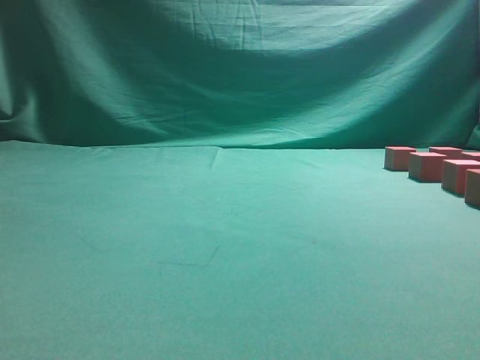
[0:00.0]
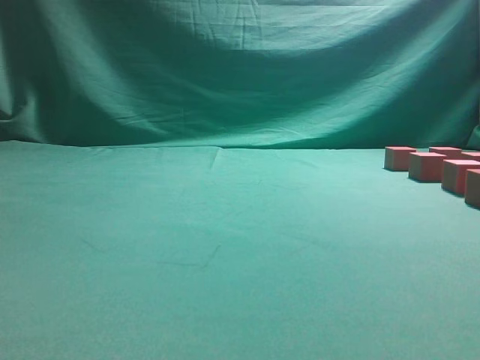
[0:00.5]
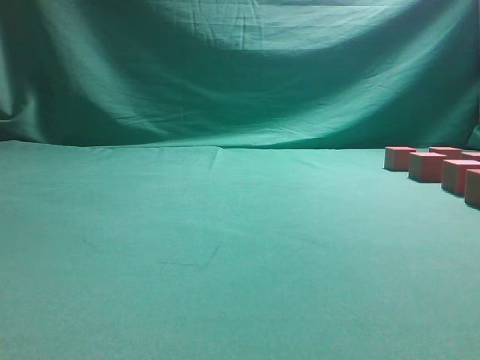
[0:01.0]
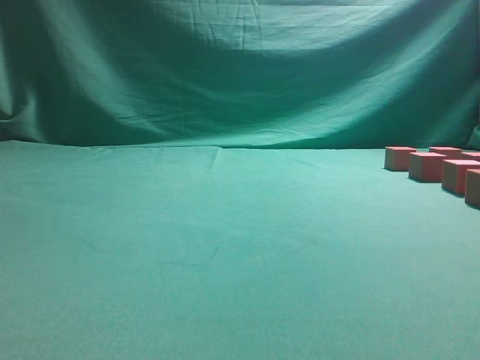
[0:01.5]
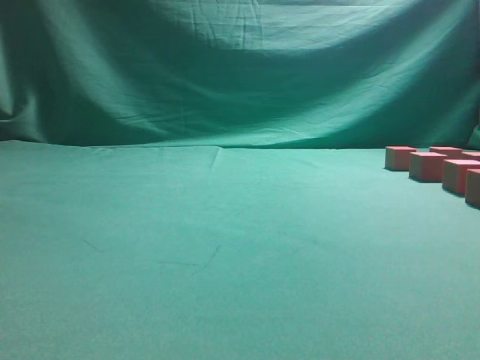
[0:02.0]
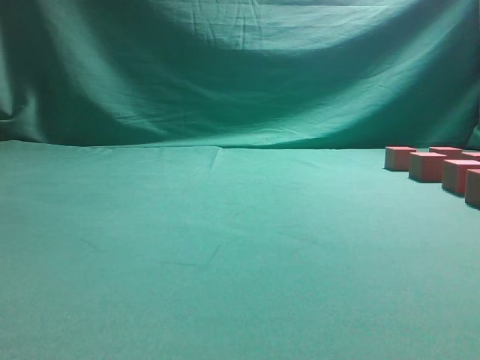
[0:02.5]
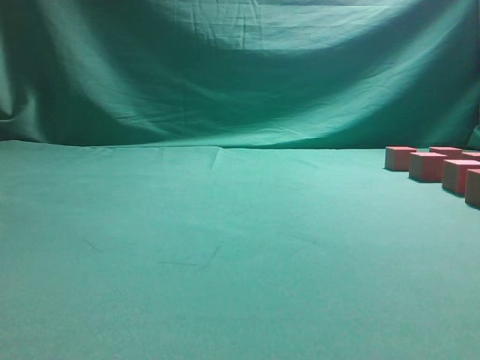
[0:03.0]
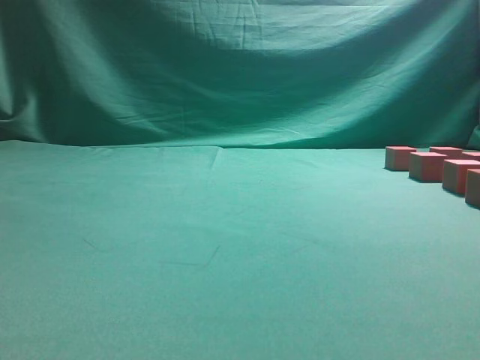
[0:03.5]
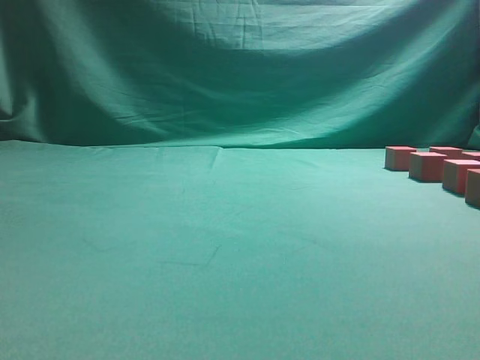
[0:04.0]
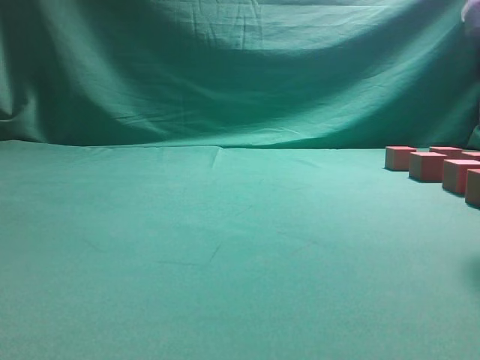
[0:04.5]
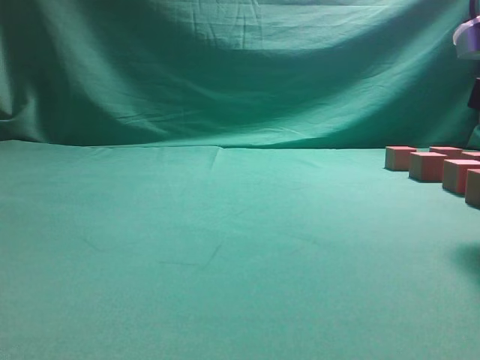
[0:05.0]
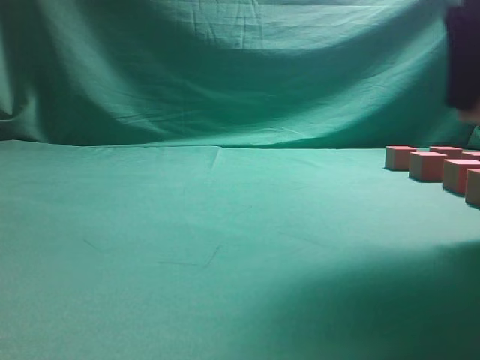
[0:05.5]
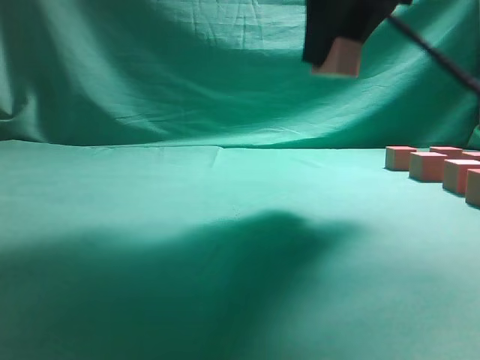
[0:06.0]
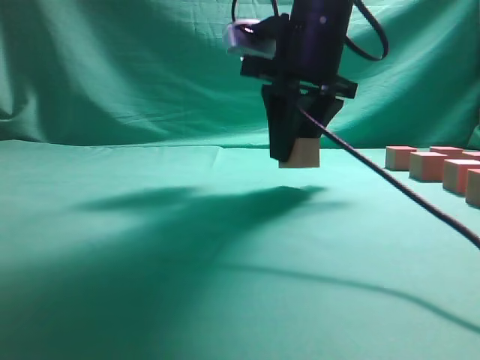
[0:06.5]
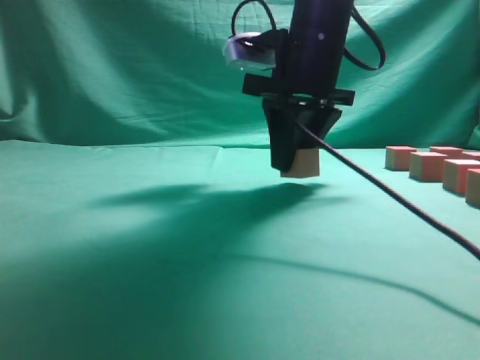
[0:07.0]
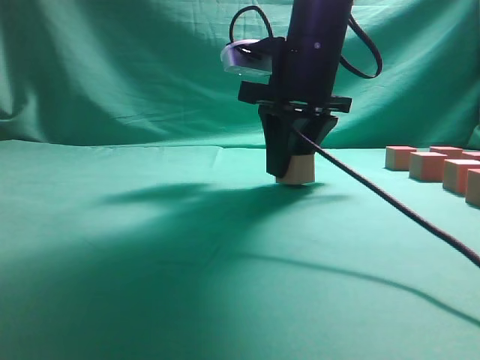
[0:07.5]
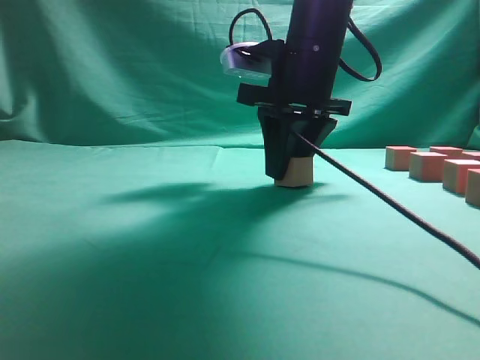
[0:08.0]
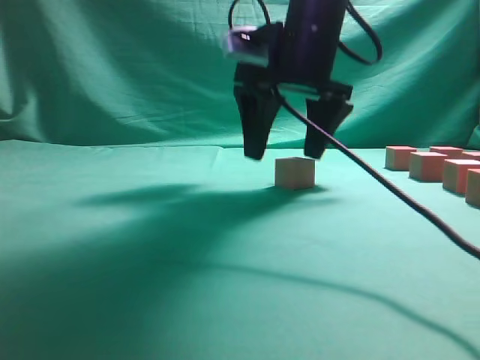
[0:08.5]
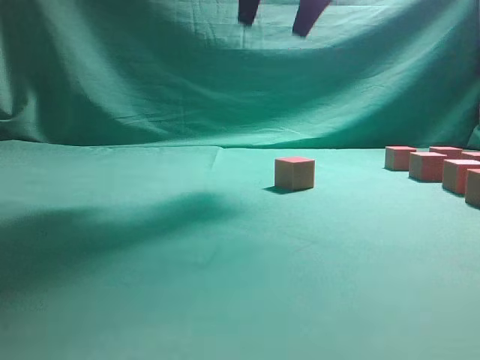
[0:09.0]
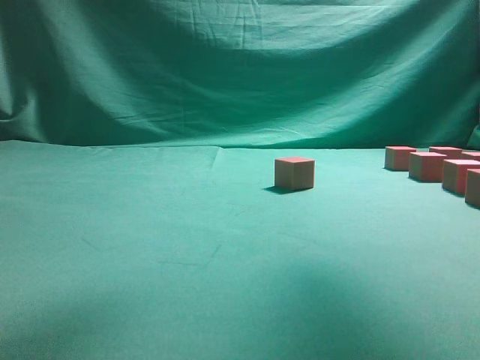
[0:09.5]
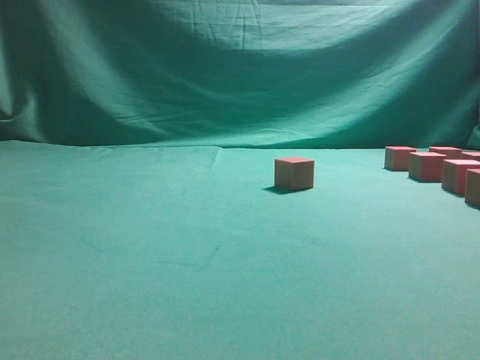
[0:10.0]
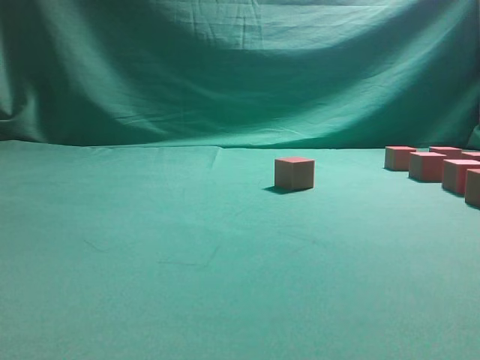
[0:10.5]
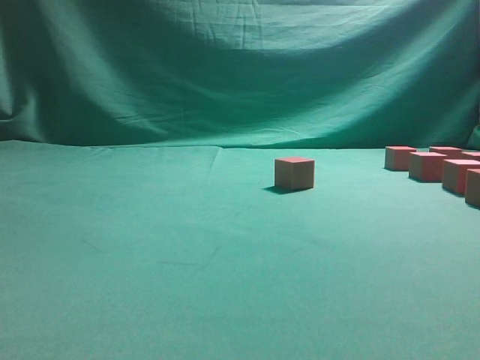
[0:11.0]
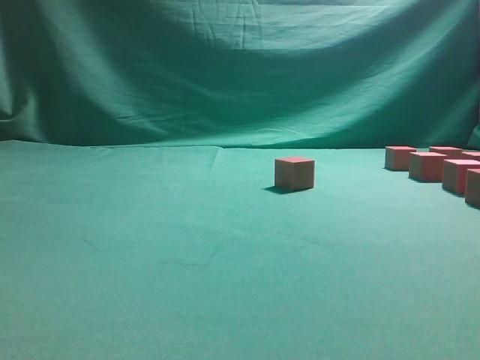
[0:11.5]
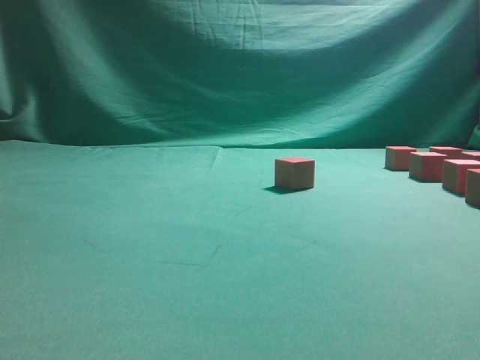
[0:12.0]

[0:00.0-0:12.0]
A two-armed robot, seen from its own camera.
Task of the whole recording: pick up the multiple cubes in two columns one by one and place them in another position on the table.
Step, 0:00.0 to 0:05.5: Pick up the block on the table.
Step, 0:06.0 to 0:08.5: Place the block at the correct position to assemble the letter S.
0:04.0 to 0:06.0: The right gripper shifts about 20 cm to the left, forward and upward, and opens, then closes once more.
0:06.0 to 0:08.0: The right gripper heads downward and forward, covering roughly 10 cm.
0:08.0 to 0:10.0: The right gripper is displaced to the right, backward and upward by some 25 cm, and opens up.

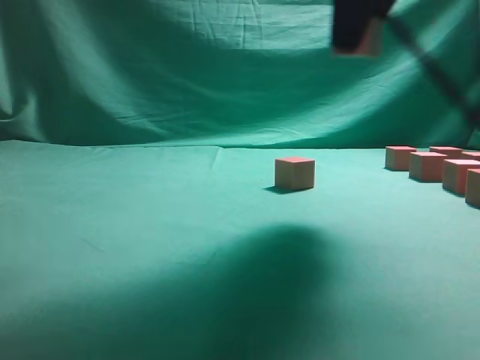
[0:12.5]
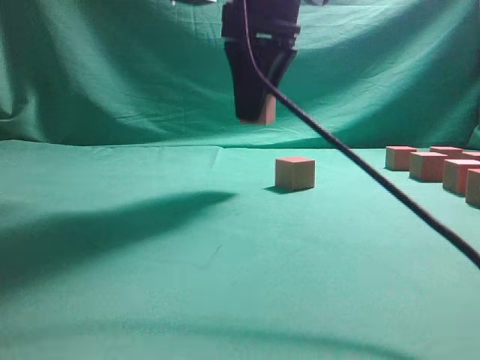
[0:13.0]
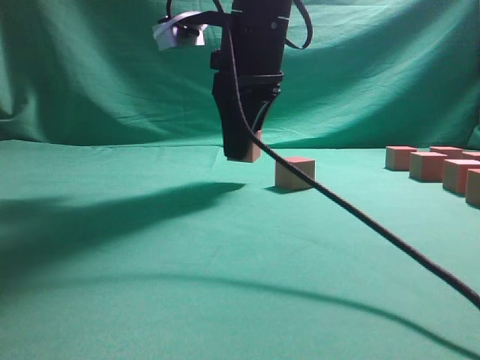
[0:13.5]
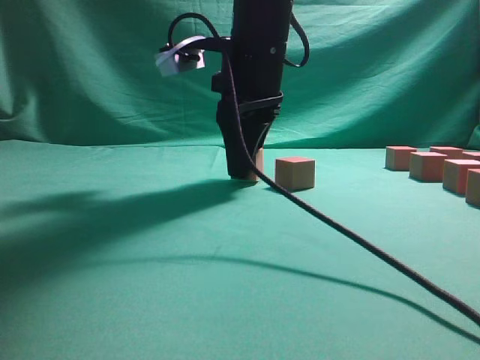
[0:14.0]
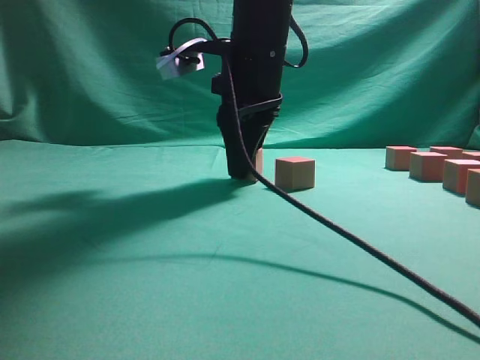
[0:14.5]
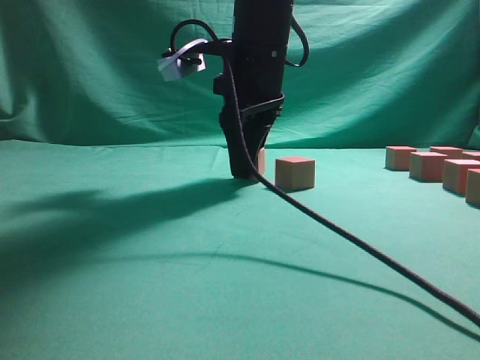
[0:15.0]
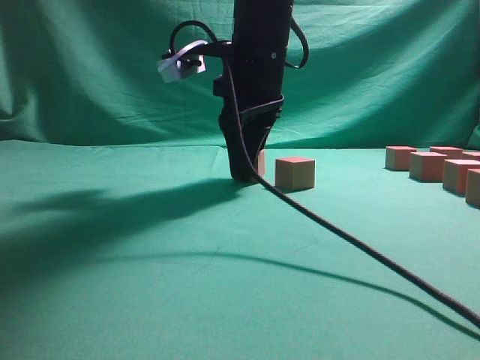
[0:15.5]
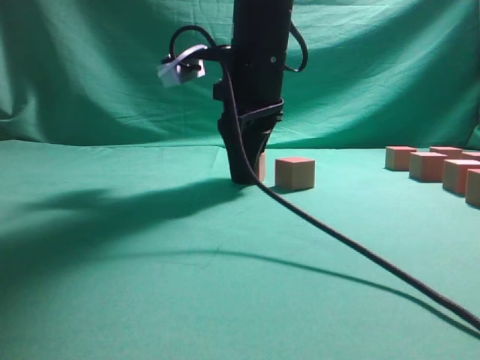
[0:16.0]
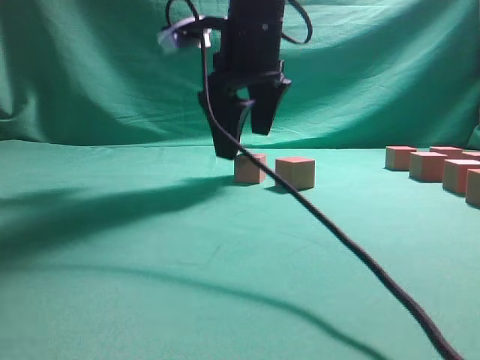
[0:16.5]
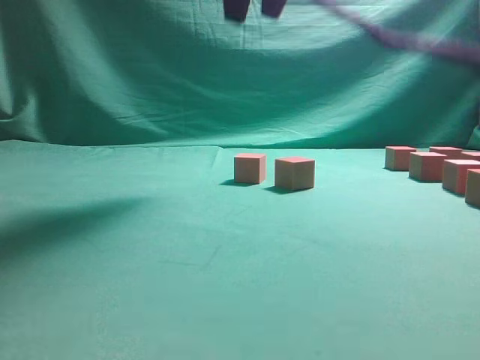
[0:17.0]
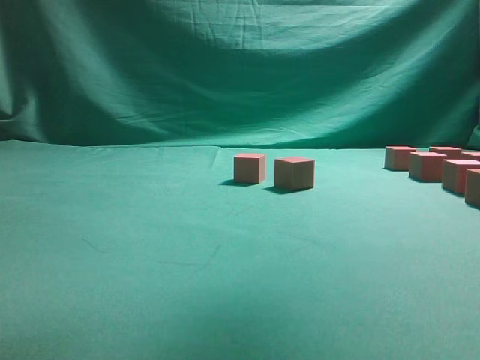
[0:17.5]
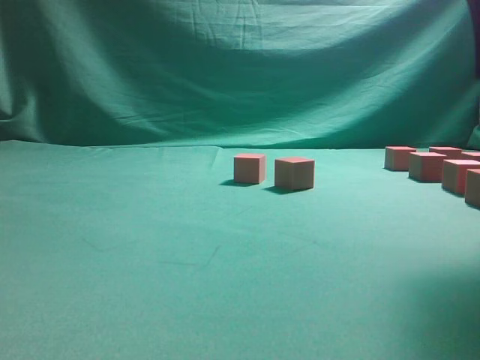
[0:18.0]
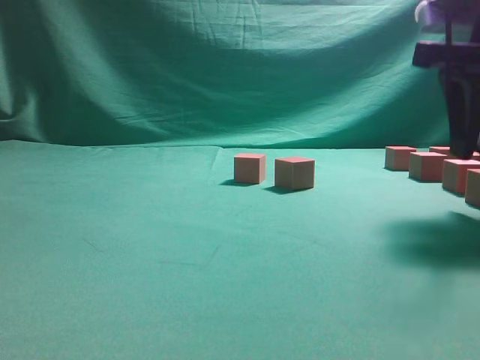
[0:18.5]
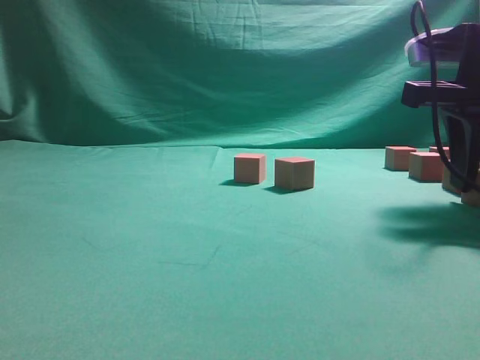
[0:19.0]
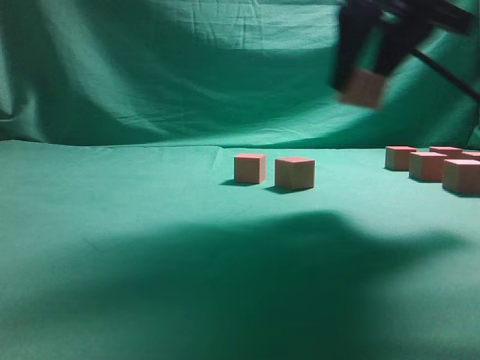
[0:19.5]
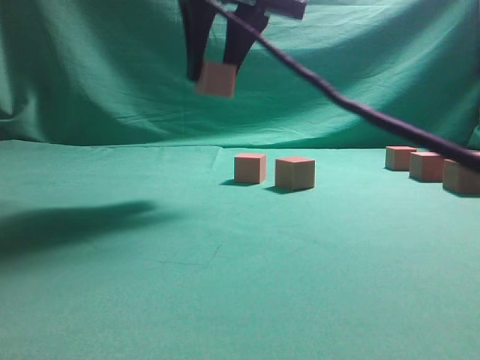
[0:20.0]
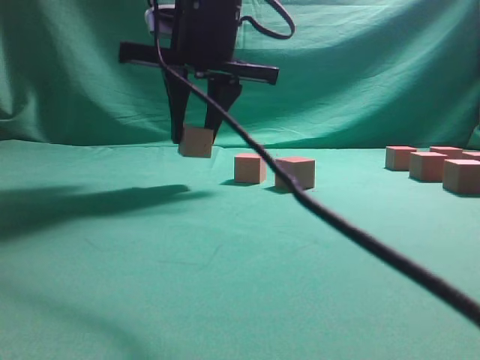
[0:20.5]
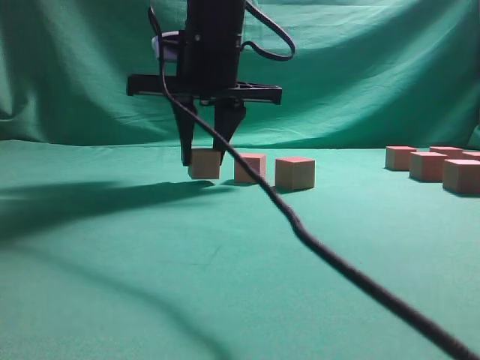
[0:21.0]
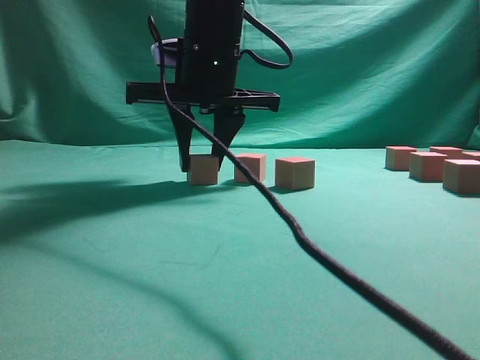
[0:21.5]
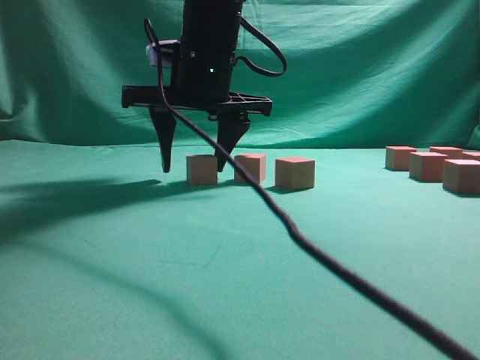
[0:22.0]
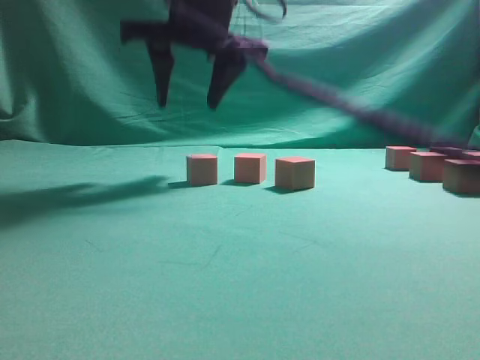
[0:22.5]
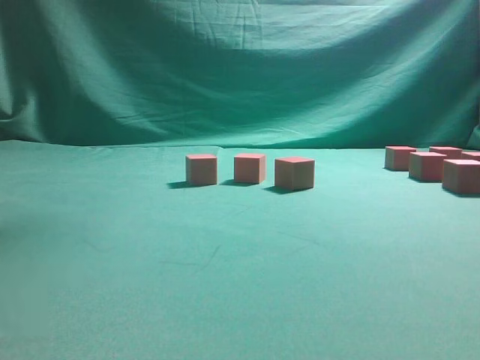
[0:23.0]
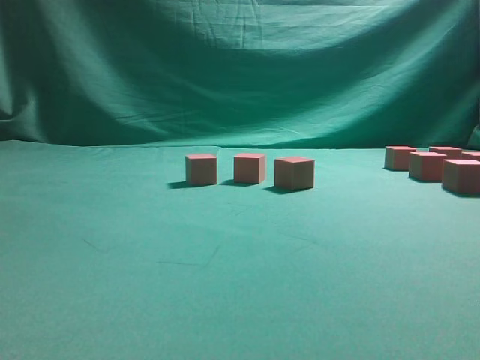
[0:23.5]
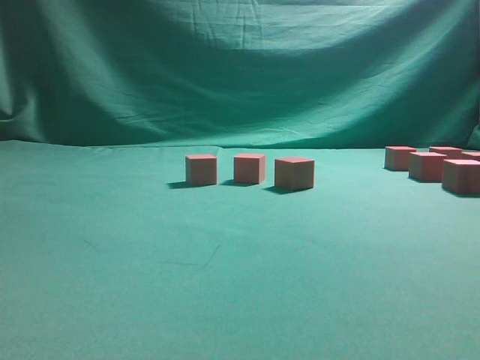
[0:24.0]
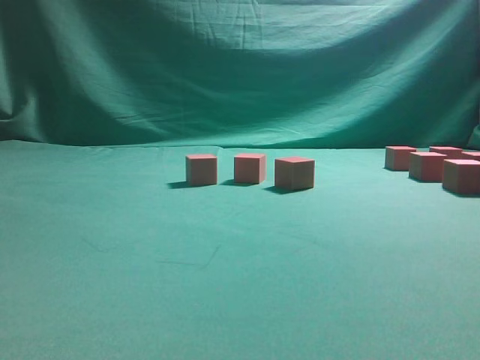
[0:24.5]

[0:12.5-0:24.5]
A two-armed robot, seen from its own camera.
Task of the whole recording: pick up the multiple cubes in two columns one by one and place them in another position on the table.
Step, 0:12.5 to 0:16.5: Place the block at the correct position to assemble the letter S.
Step, 0:17.0 to 0:19.0: Pick up the block on the table.
Step, 0:19.5 to 0:22.5: Place the block at the correct position to assemble the letter S.
0:12.5 to 0:14.5: The right gripper shifts some 20 cm downward, to the left and forward.
0:14.5 to 0:16.5: The right gripper opens its fingers.
0:16.5 to 0:18.5: The right gripper is displaced to the right and backward by approximately 25 cm.
0:18.5 to 0:20.5: The right gripper shifts about 25 cm to the left.
0:20.5 to 0:22.5: The grippers make only small movements.
0:22.5 to 0:24.5: The right gripper shifts roughly 35 cm to the right.

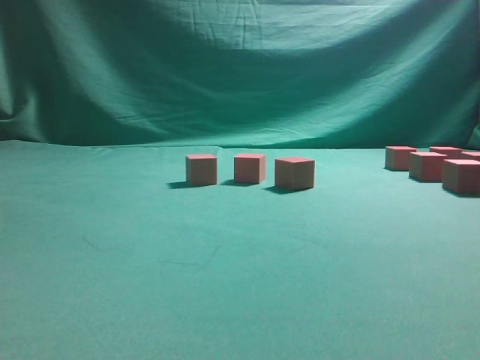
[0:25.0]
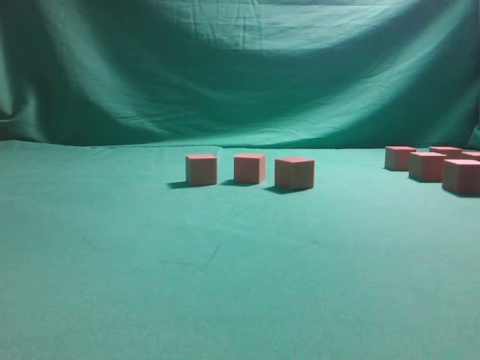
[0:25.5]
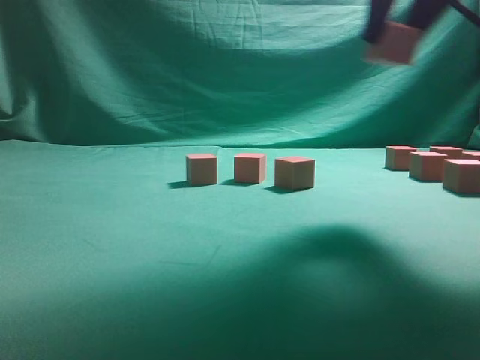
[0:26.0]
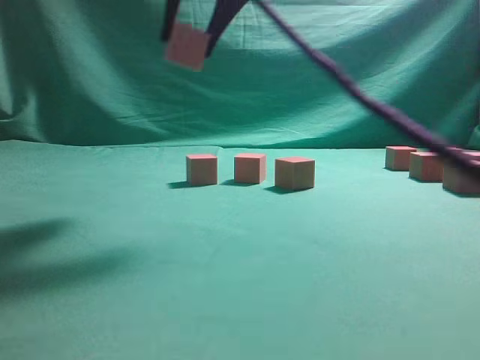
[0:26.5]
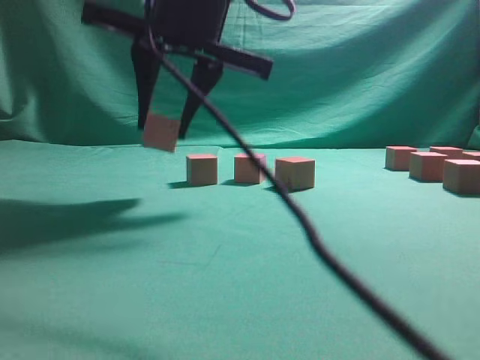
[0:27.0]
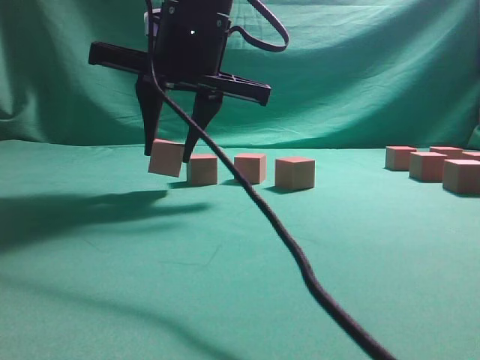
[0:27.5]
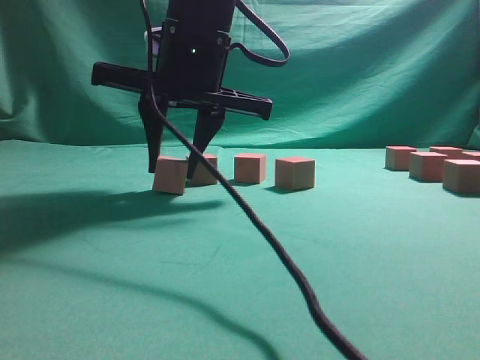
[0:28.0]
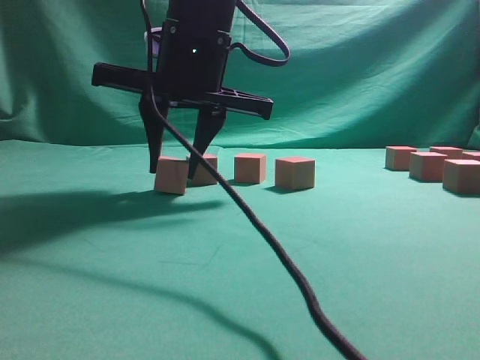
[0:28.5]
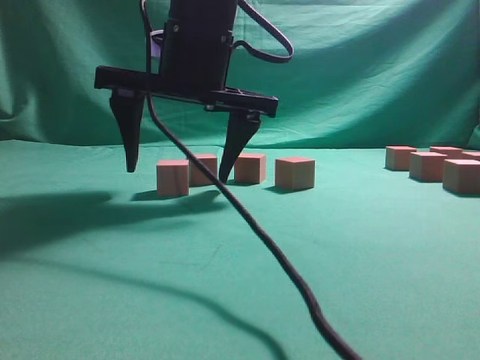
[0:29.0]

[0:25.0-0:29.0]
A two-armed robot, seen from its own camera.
Task of the whole recording: pick up the multiple cubes in two columns one by one and place them in another position on the table.
0:25.0 to 0:27.0: The right gripper travels to the left by approximately 35 cm.
0:27.0 to 0:29.0: The right gripper opens up.
